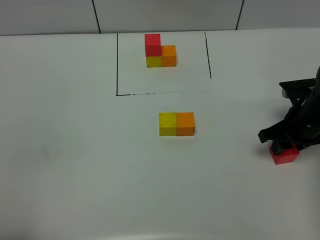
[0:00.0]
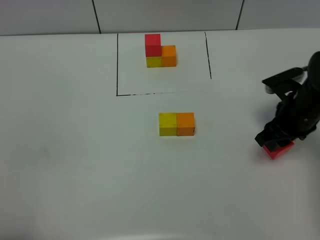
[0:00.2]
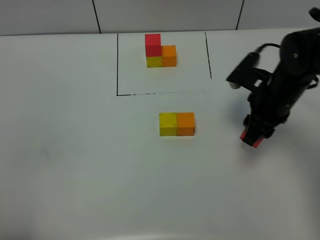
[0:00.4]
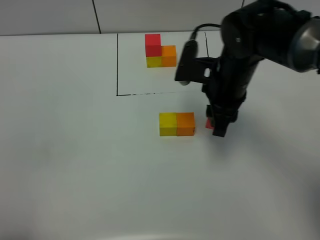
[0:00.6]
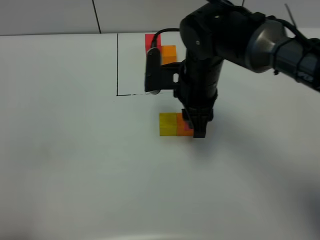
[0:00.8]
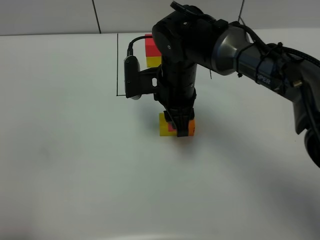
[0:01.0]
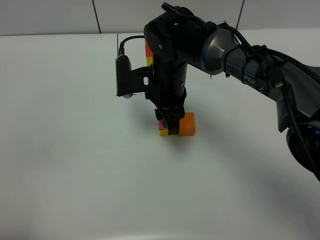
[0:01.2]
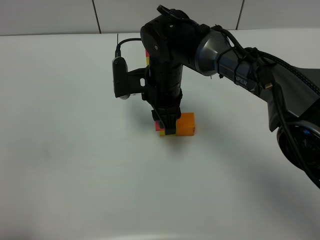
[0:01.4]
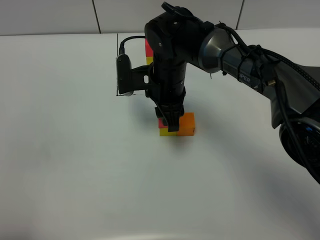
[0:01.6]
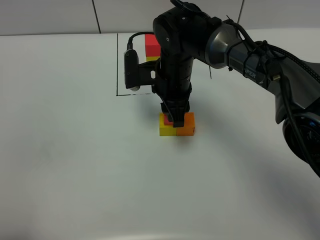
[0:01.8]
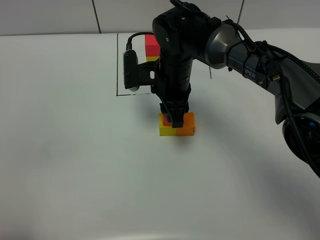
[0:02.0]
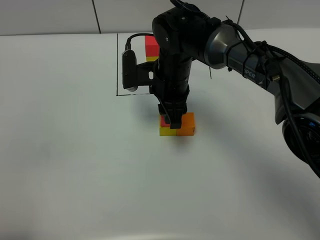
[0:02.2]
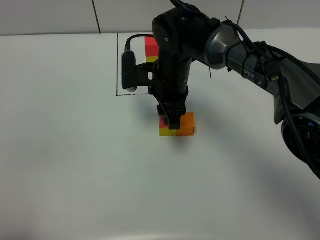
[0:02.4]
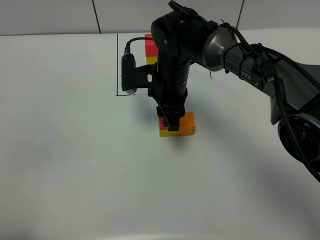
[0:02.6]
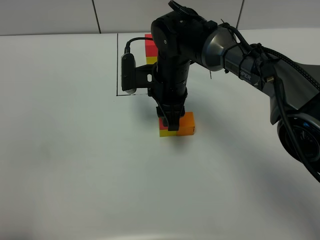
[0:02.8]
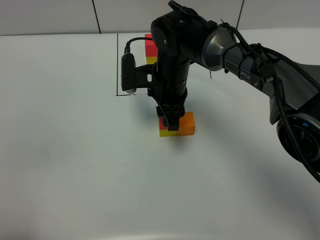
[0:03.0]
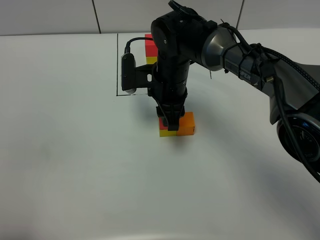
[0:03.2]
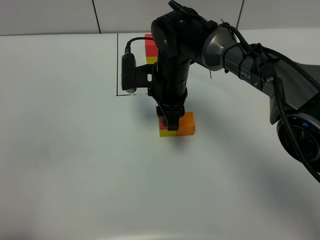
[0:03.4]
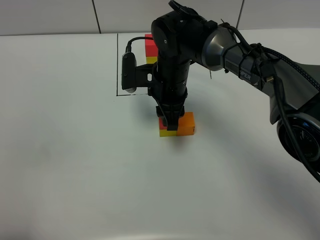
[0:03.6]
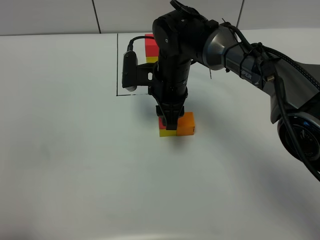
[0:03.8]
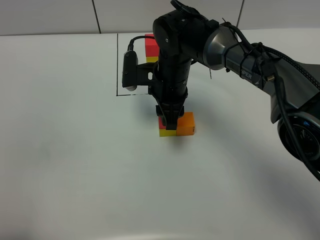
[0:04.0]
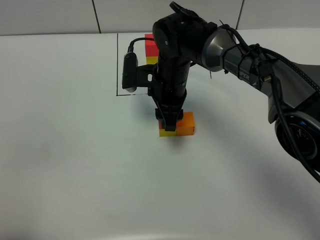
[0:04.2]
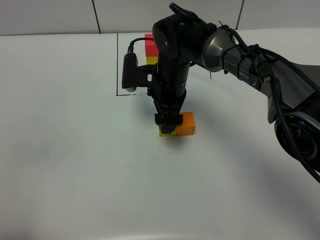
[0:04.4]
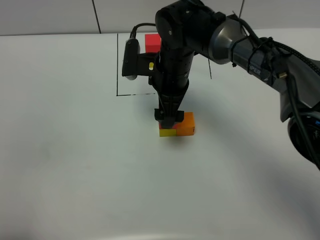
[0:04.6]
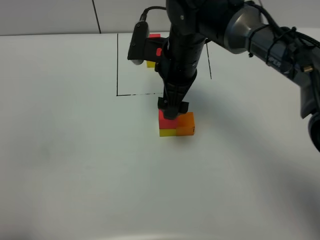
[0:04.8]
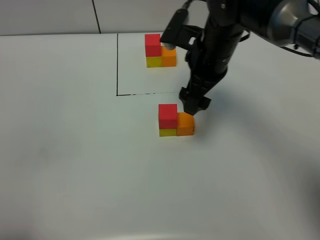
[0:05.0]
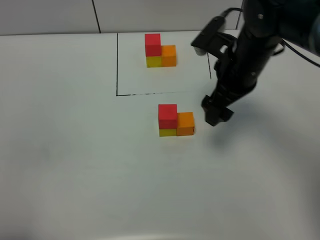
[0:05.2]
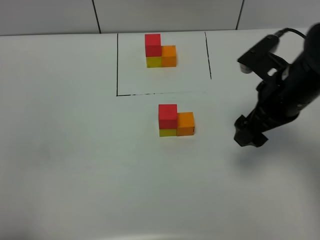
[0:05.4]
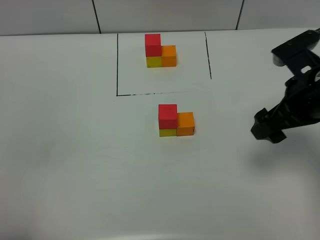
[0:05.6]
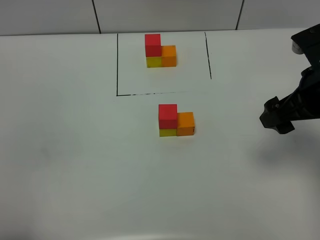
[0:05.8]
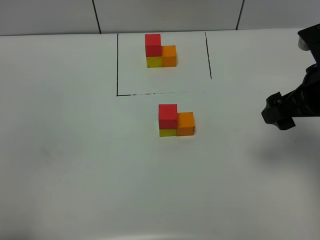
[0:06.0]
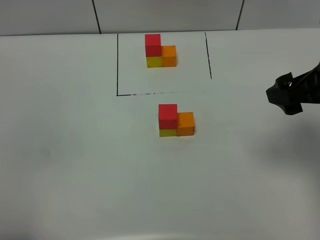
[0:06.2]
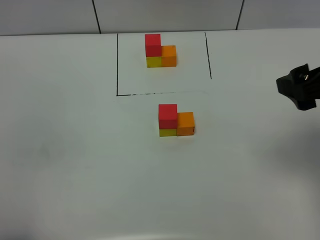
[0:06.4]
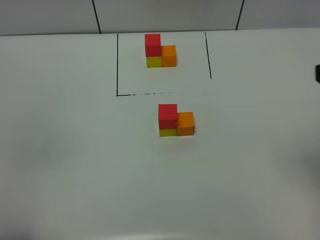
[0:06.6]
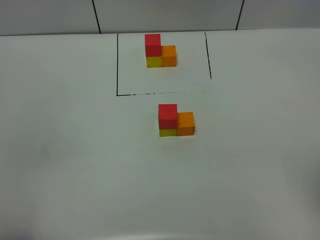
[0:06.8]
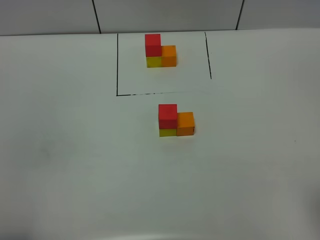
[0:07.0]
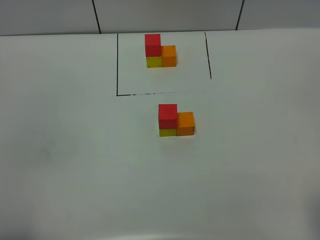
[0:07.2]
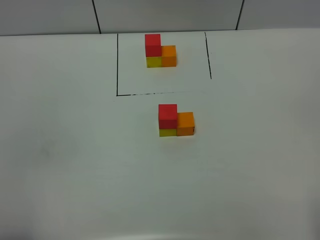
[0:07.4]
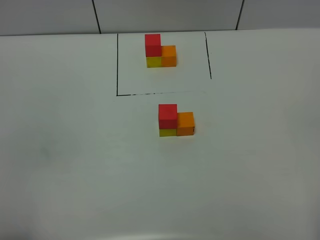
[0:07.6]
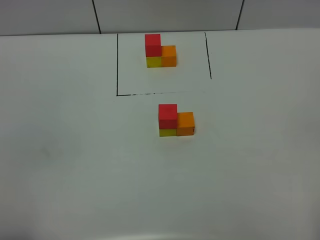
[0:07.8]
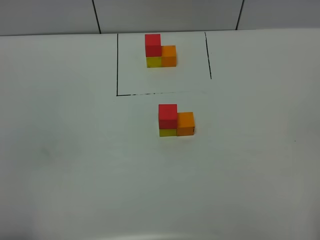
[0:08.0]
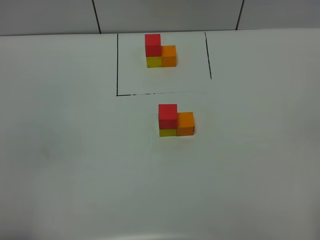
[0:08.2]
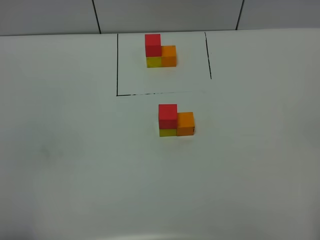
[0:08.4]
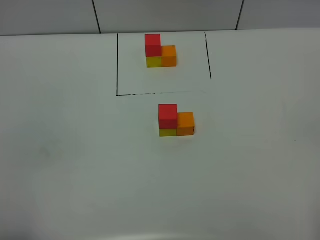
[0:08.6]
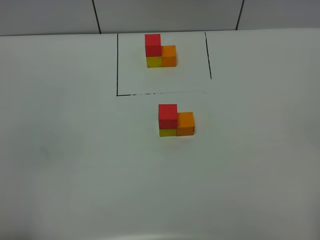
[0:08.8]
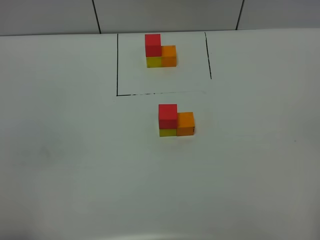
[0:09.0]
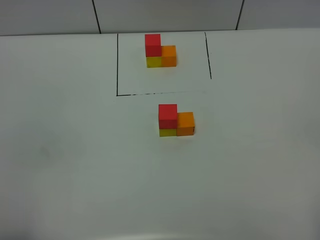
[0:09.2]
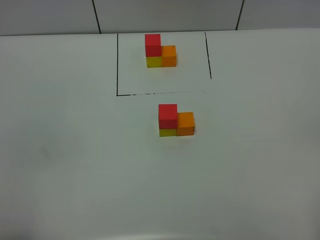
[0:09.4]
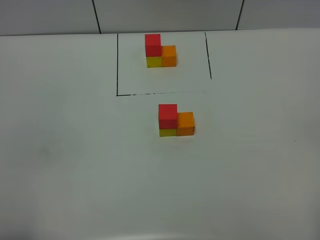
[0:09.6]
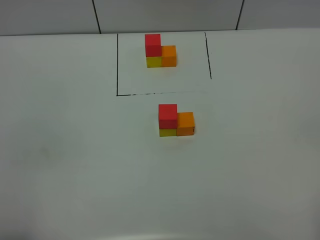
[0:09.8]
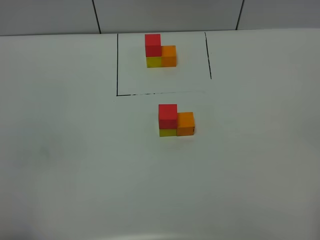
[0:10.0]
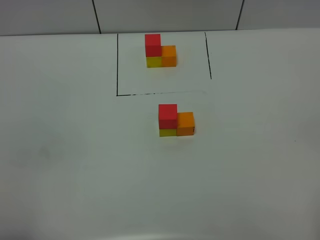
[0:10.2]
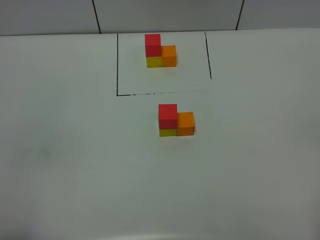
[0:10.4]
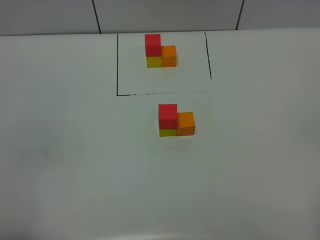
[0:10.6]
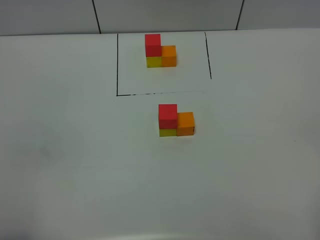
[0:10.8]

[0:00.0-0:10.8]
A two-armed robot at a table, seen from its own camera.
Task of the whole recording: According to the building block template in front, assemble the scattered blocks together.
Step, 0:00.0 to 0:04.6: Put the red build block on the yellow build block.
0:00.0 to 0:01.6: The right gripper moves to the left, some 25 cm.
0:01.6 to 0:03.0: The two grippers keep their place.
0:03.0 to 0:04.6: The right gripper opens up.
0:04.6 to 0:06.2: The right gripper is displaced to the right, backward and upward by some 30 cm.
0:06.2 to 0:07.8: The right gripper goes roughly 25 cm backward.
0:07.8 to 0:10.8: Both grippers stay about where they are.

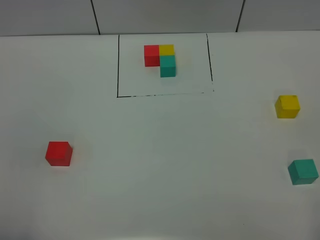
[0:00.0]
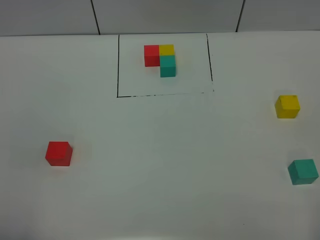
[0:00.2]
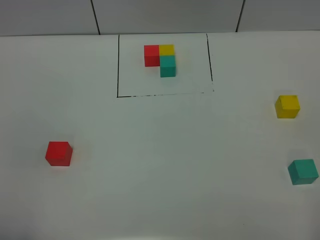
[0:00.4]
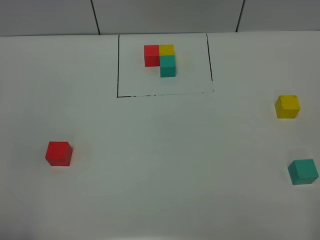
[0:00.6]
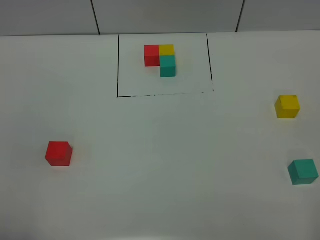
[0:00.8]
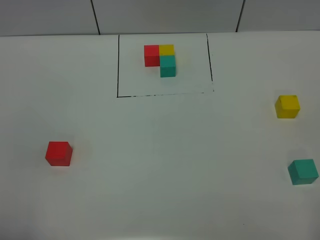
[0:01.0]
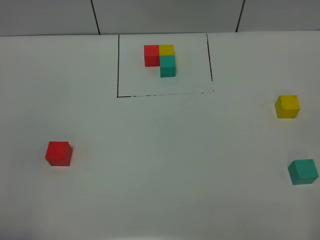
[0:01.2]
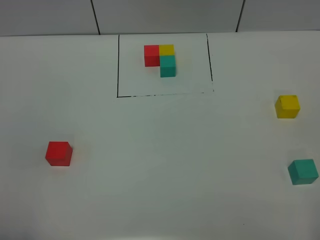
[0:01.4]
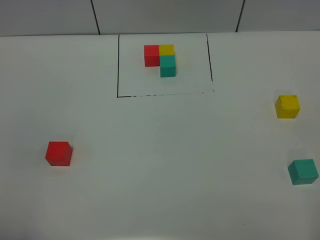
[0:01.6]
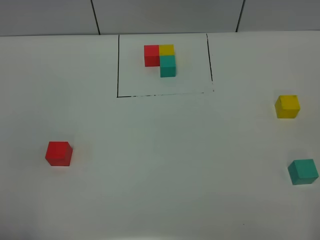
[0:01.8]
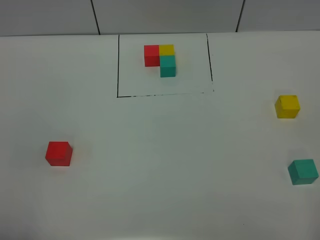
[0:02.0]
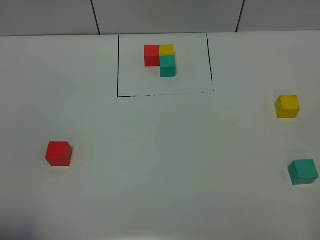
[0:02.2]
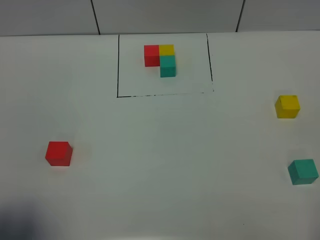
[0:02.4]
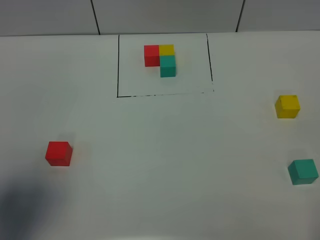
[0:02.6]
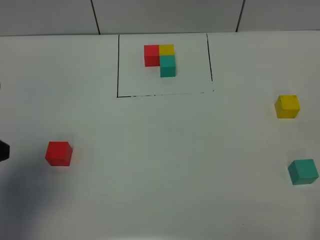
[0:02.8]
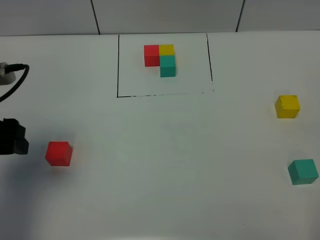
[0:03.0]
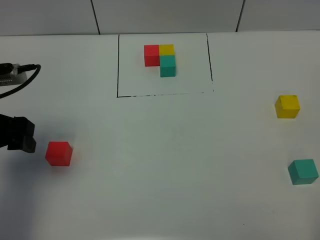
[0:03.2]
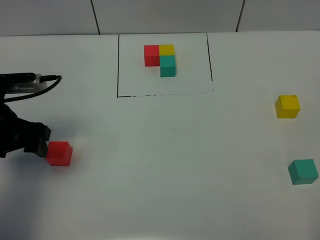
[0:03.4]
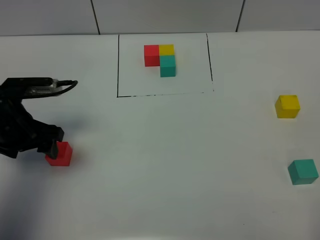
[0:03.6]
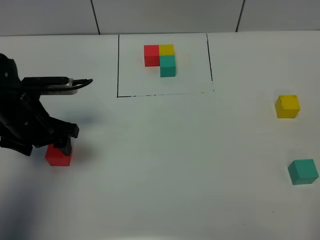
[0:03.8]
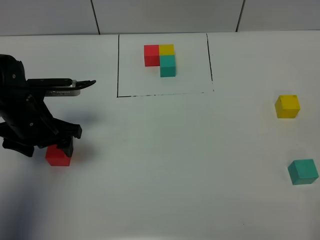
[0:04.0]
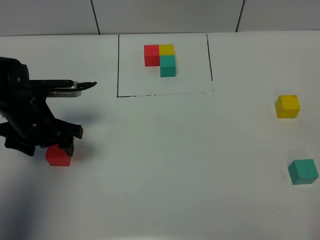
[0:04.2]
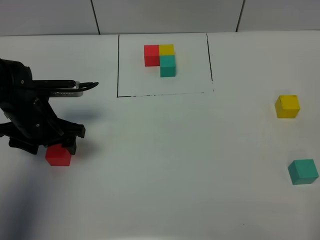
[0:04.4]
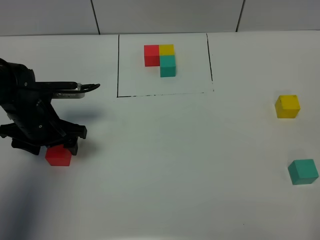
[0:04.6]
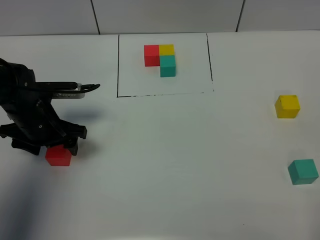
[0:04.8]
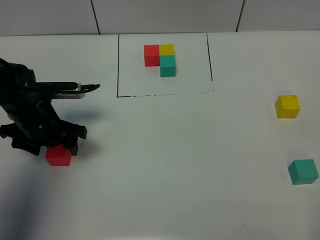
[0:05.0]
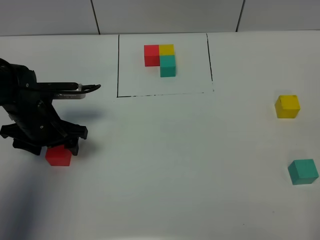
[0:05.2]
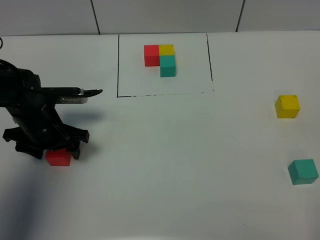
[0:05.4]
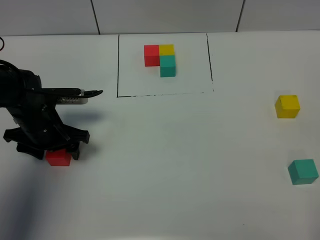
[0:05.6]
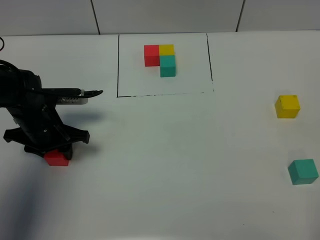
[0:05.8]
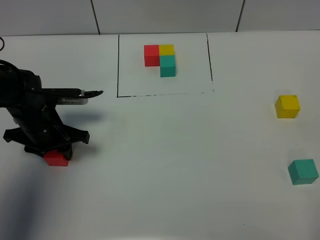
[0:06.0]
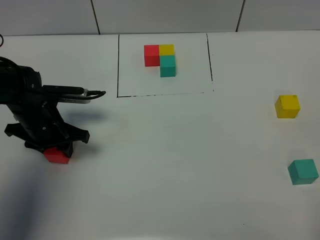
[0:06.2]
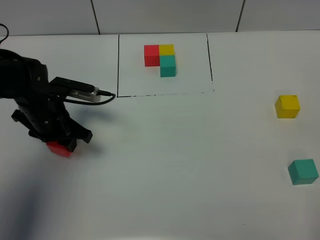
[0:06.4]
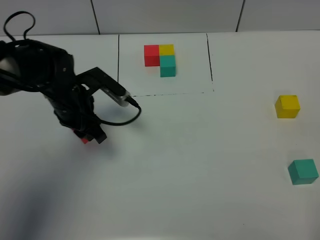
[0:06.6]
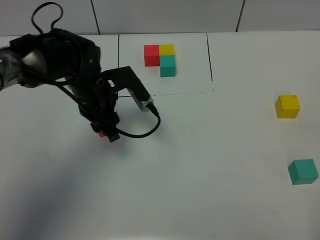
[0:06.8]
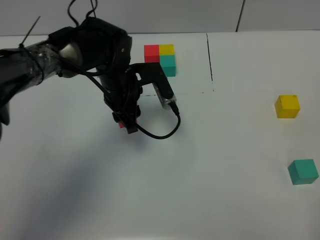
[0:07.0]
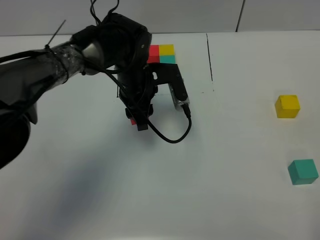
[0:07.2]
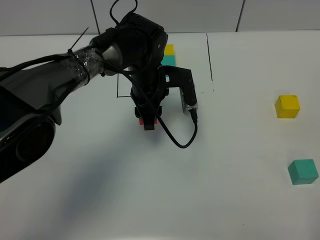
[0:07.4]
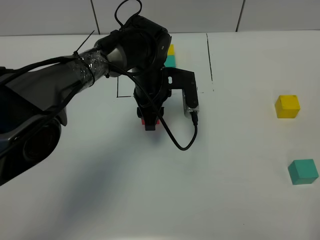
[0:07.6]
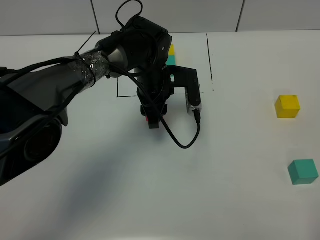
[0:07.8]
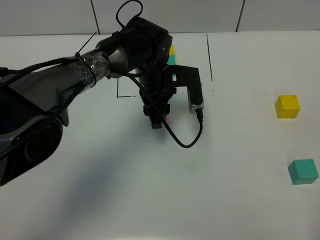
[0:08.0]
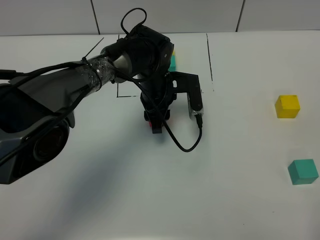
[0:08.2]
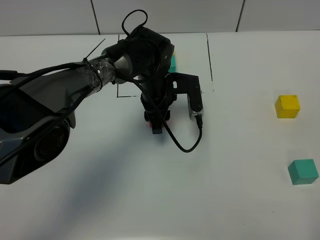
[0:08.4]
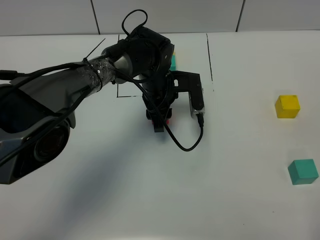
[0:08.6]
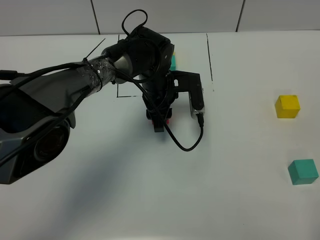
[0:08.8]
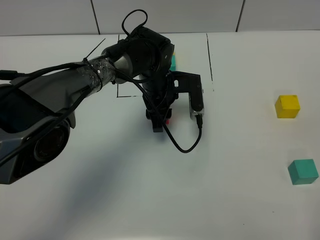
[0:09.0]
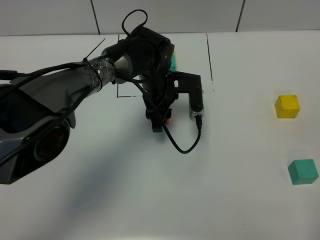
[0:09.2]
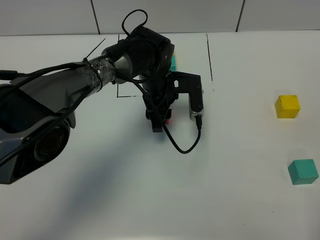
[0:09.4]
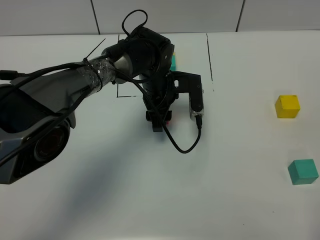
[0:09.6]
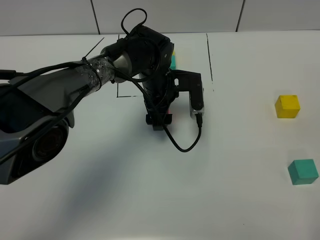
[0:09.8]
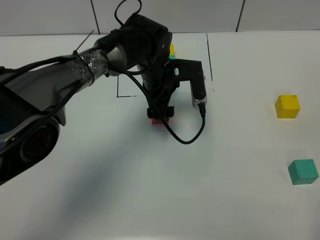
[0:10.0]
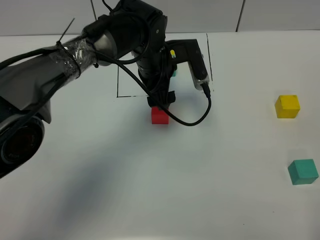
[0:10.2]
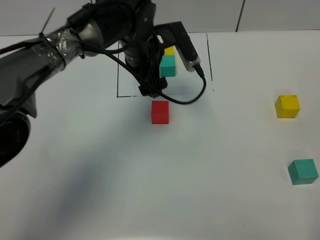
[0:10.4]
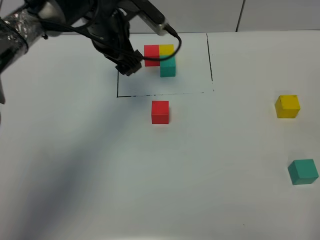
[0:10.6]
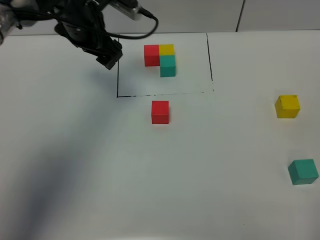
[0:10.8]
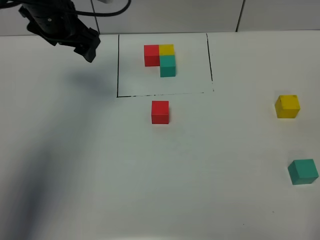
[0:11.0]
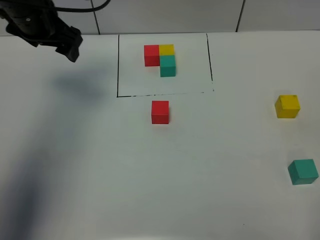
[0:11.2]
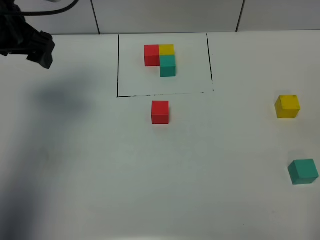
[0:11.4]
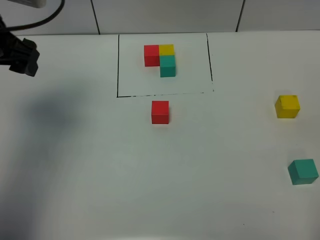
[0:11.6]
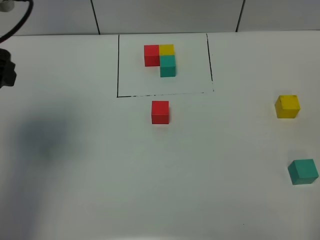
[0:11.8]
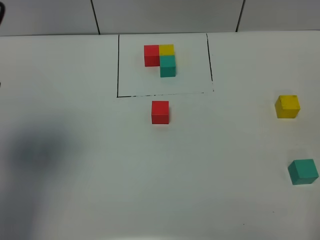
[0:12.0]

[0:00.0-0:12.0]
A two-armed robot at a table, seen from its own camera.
Task of the whole recording: According to the building block template in front, assemble the scattered blocks together.
Step, 0:00.0 to 0:09.6: Put the red build block in the center of the table.
0:00.0 to 0:01.6: The two grippers keep their place.
0:01.6 to 0:03.0: The left gripper travels forward by roughly 25 cm.
0:03.0 to 0:04.4: The left gripper heads downward, forward and to the right, covering some 15 cm.
0:04.4 to 0:06.0: The left gripper closes its fingers.
0:06.0 to 0:07.6: The left gripper travels to the right by roughly 20 cm.
0:07.6 to 0:09.0: The grippers stay close to where they were, moving slightly.
0:09.0 to 0:10.4: The left gripper heads upward, covering approximately 10 cm, and opens its fingers.
0:10.4 to 0:12.0: The left gripper travels to the left, backward and upward by about 35 cm.
